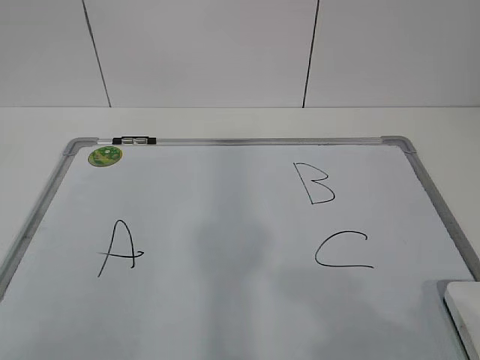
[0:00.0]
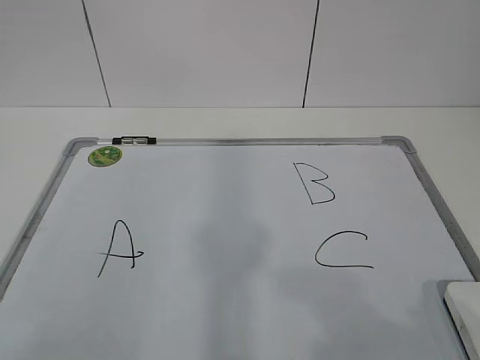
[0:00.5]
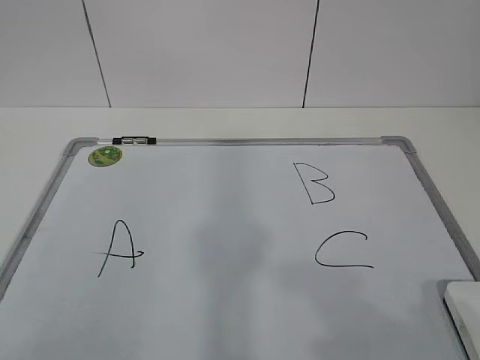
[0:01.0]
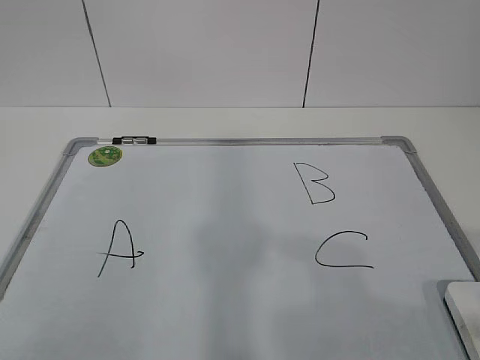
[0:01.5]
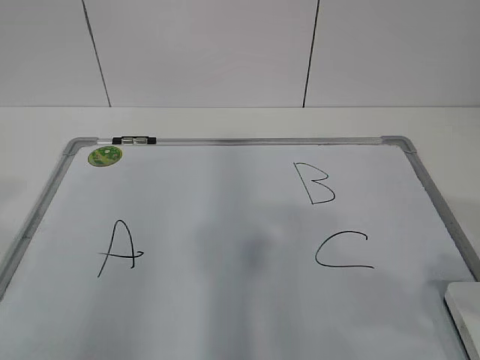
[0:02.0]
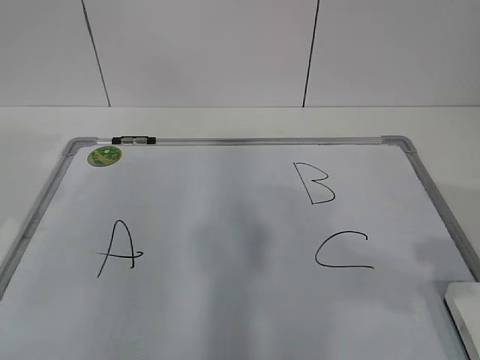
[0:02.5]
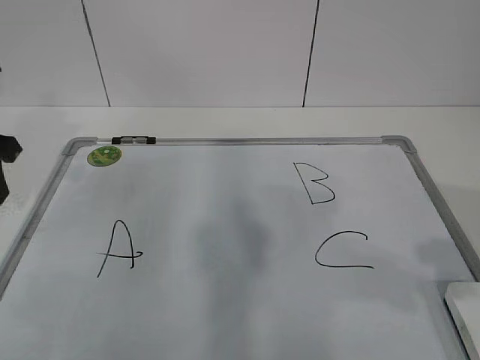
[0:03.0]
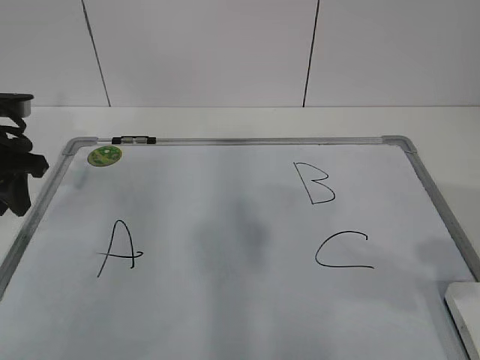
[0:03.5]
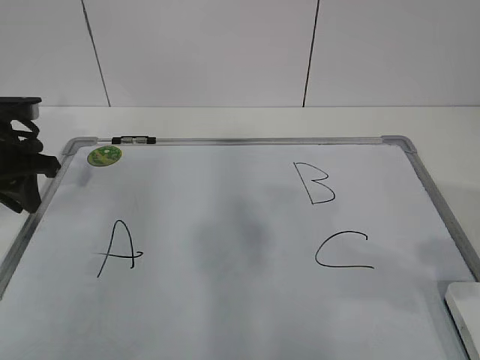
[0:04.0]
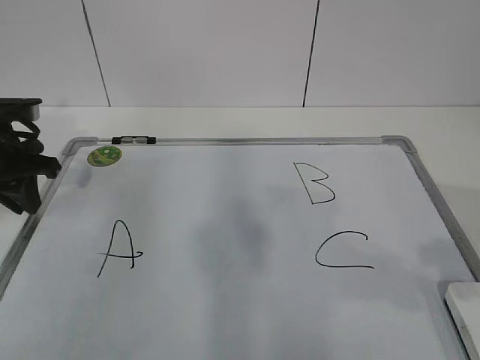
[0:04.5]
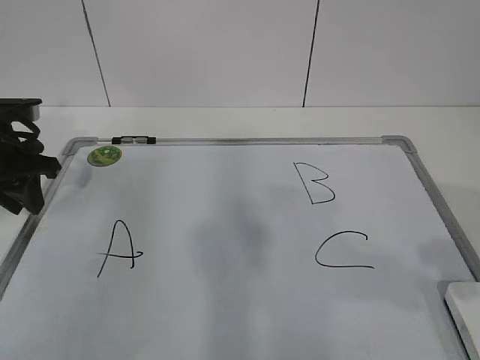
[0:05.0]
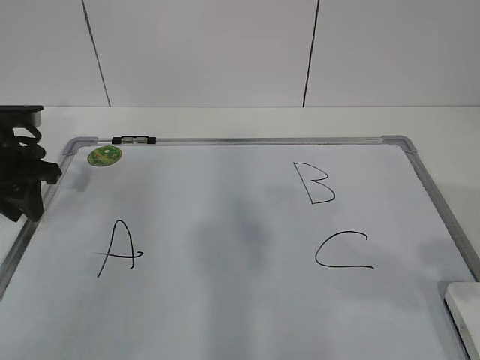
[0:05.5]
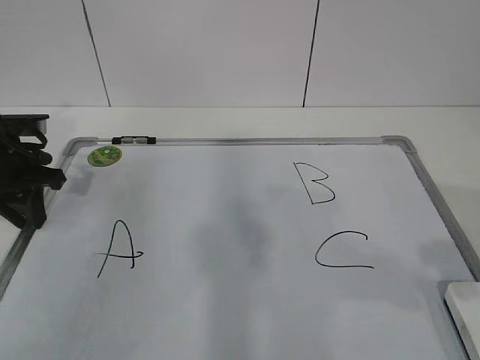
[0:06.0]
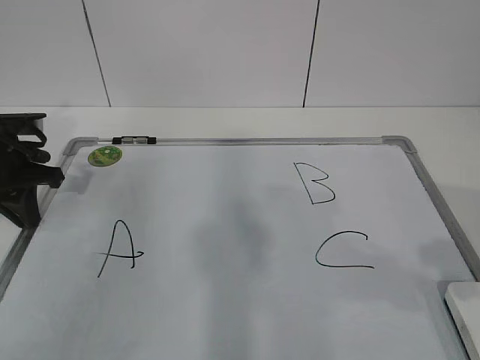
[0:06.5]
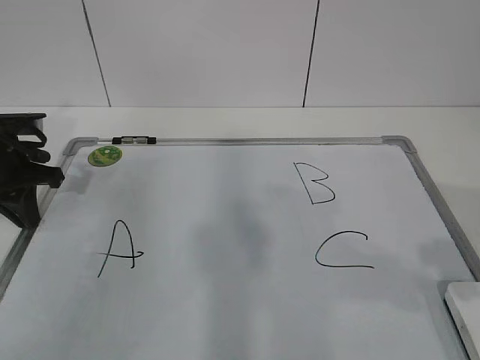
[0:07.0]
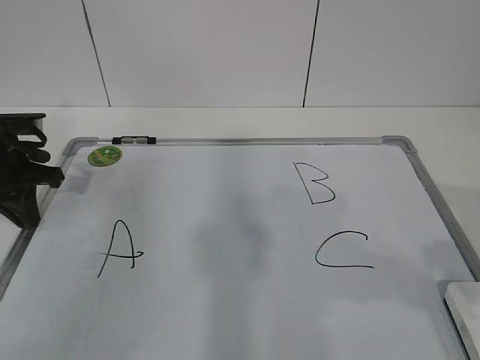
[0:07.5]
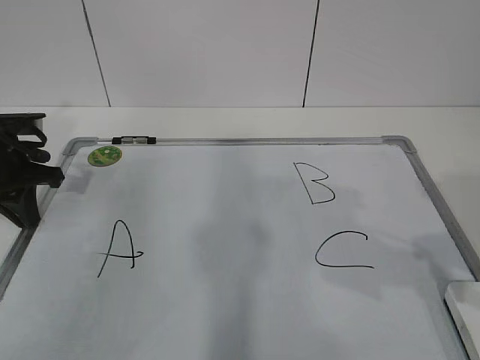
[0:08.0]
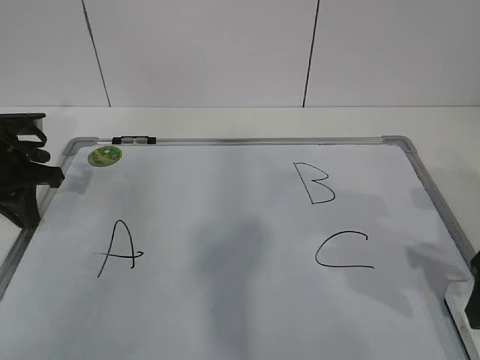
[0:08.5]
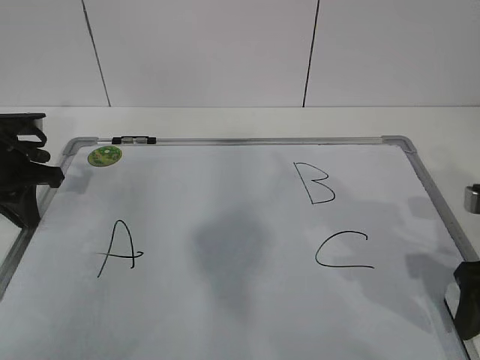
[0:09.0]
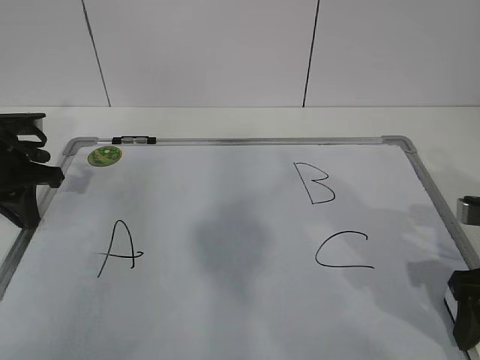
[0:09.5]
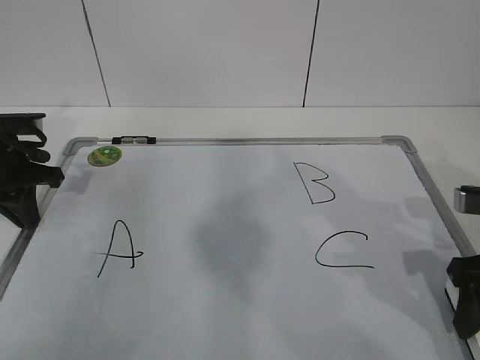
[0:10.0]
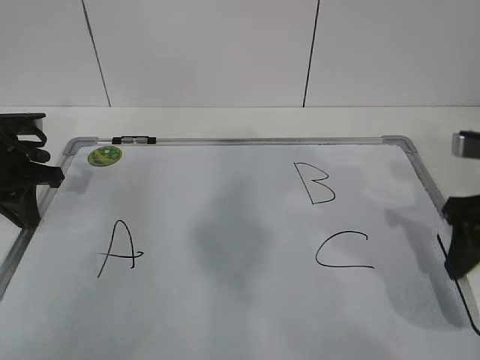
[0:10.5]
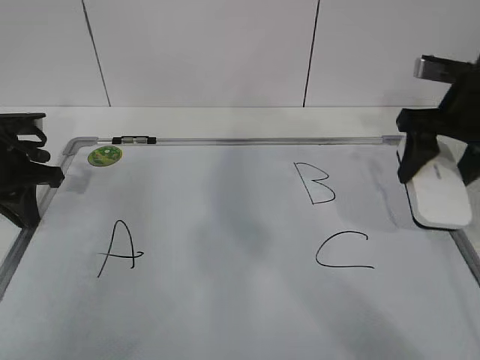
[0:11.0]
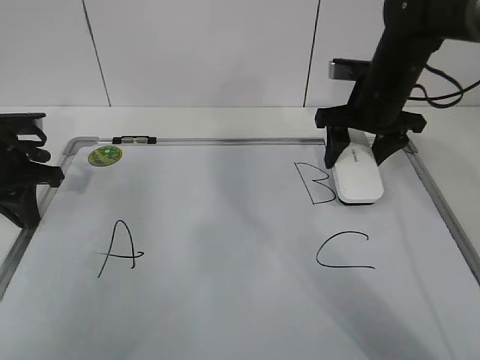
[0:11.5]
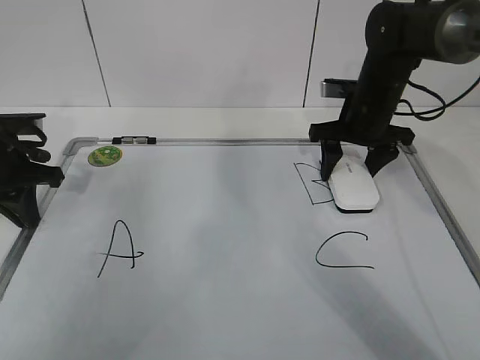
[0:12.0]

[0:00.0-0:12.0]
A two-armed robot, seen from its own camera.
Task of the whole recording: pick up the eraser on the blackboard and erase the letter "B".
Step, 0:00.0 to 0:05.0: Hold the drawing board steady with your left hand.
Step, 0:05.5 to 0:08.0: Grab the eraser with your right hand.
0:02.0 to 0:04.0: The left gripper travels forward and downward by about 30 cm, and closes its fingers.
0:04.0 to 0:06.0: There are only small adjustments of the grippers.
0:06.0 to 0:08.0: The left gripper closes up.
0:08.0 to 0:10.0: The right gripper shifts about 10 cm downward and forward, and closes up.
0:10.0 to 0:12.0: The right gripper travels forward by approximately 25 cm.

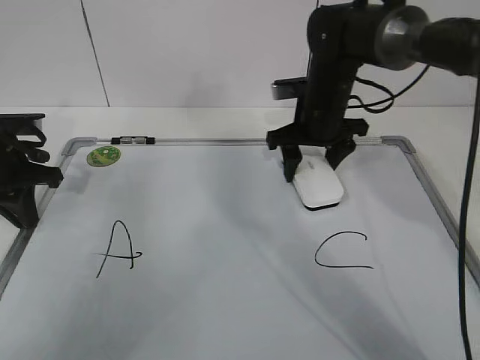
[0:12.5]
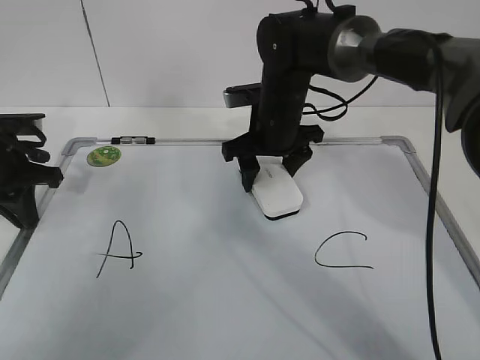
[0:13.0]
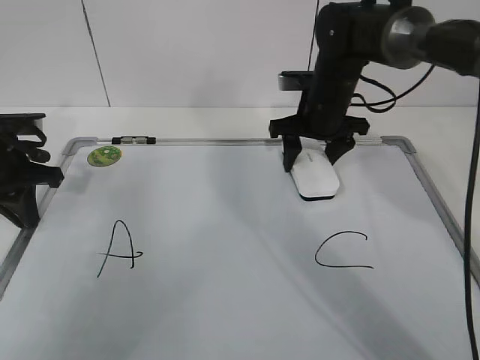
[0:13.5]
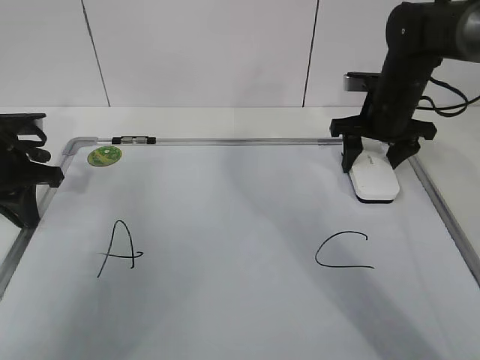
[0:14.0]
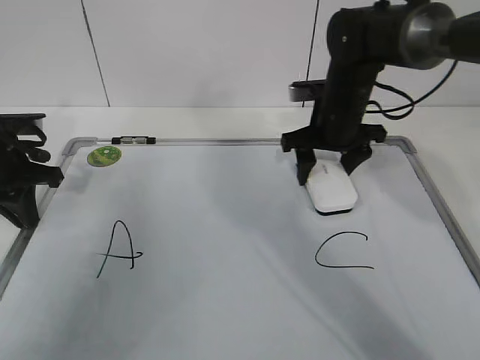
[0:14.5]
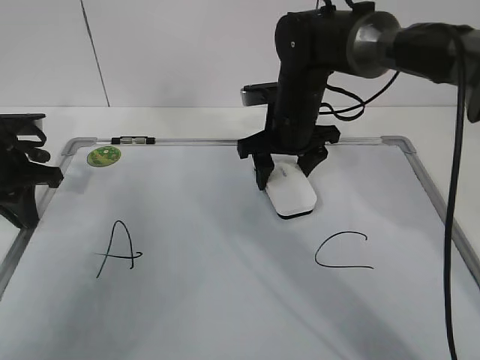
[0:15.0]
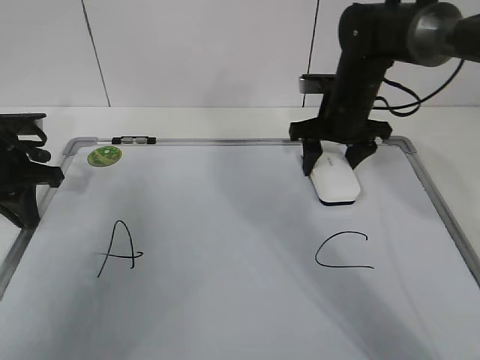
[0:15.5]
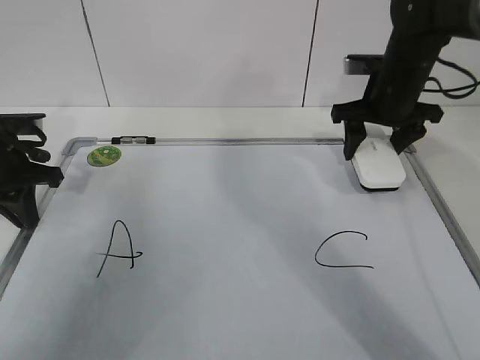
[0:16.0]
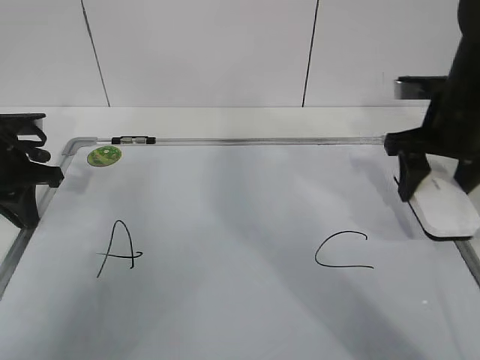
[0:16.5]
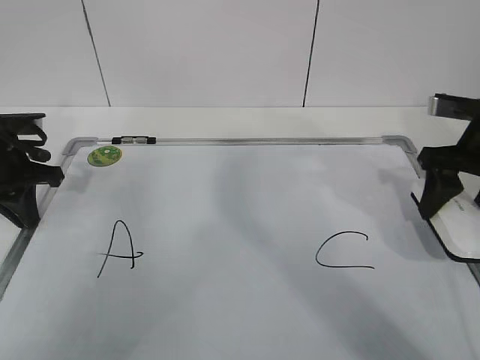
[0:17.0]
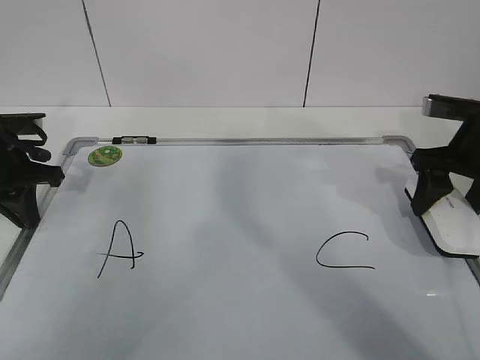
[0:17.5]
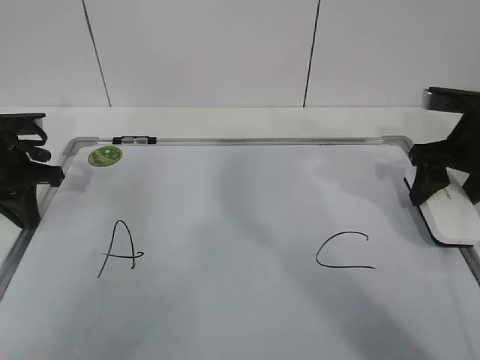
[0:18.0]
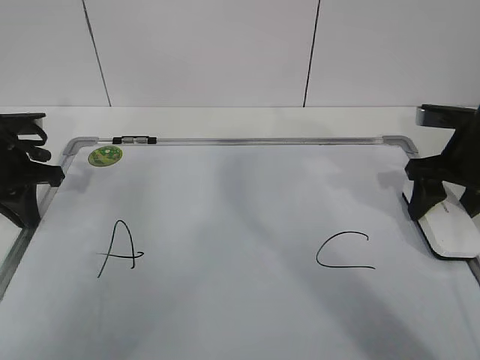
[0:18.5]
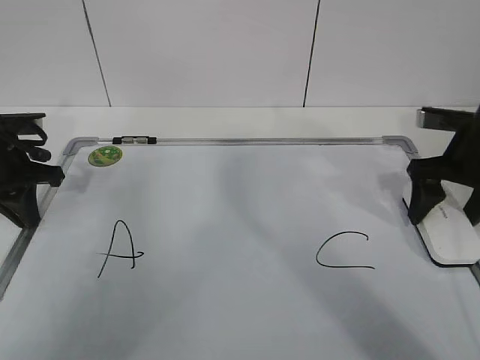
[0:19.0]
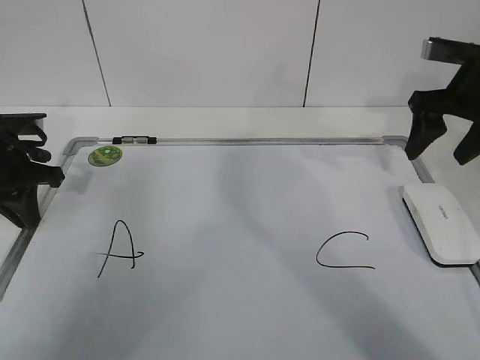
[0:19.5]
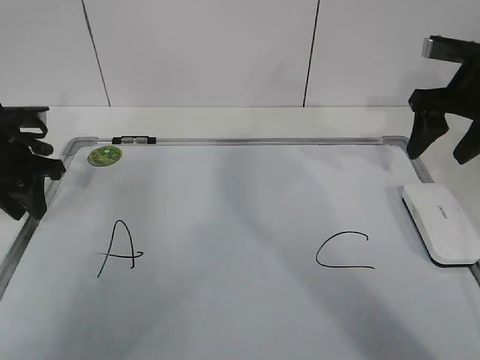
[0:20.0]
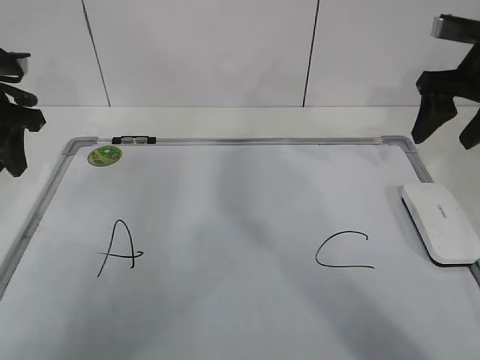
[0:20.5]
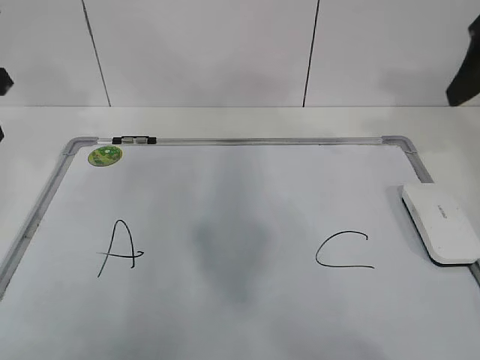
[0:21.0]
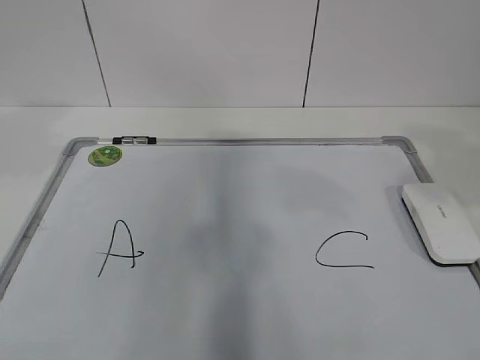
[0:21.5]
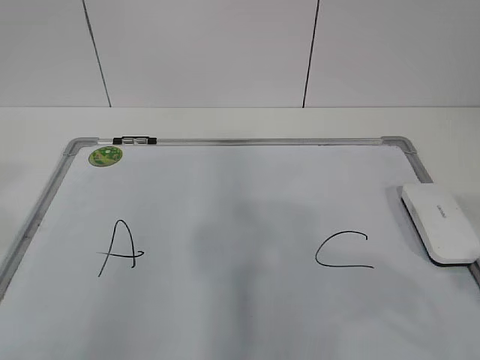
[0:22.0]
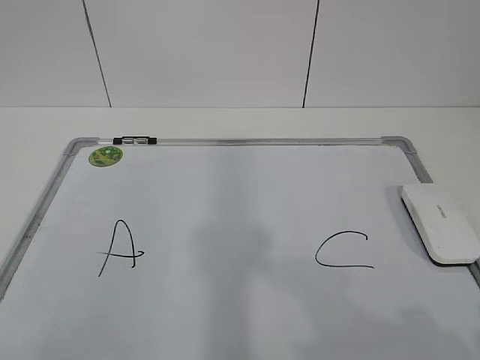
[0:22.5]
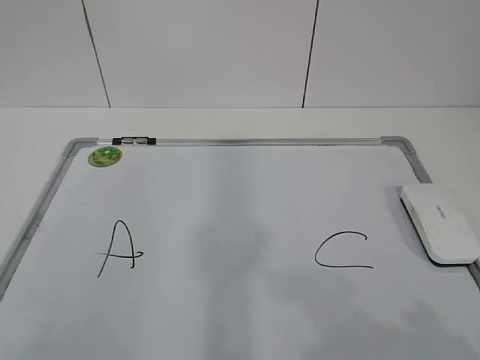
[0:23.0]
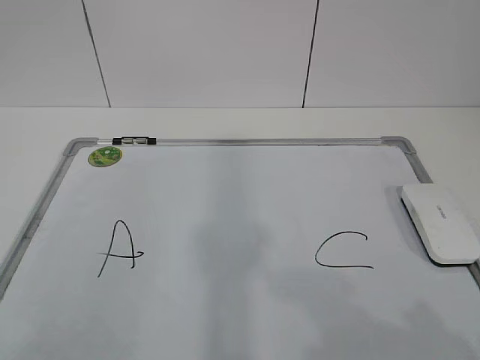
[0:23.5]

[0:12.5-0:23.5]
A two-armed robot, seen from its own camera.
Task of the whole recording: pick up the eraser on the blackboard and erase the letter "B".
Step, 0:13.5 to 0:15.5: Put down the eraser with your right hand.
0:12.5 to 0:14.5: The right gripper swings left and right, some 15 cm each way, with 2 reversals.
0:14.5 to 0:16.0: The right gripper is displaced to the right by approximately 5 cm.
0:16.0 to 0:18.0: The right gripper shifts about 10 cm backward and to the right.
0:18.0 to 0:20.0: The right gripper goes some 5 cm upward, and opens, while the left gripper opens its fingers.
0:20.0 to 0:21.5: The right gripper shifts about 25 cm backward and upward. The left gripper moves upward and backward, about 25 cm.
0:21.5 to 0:23.5: Both grippers travel together backward and downward, some 20 cm.
